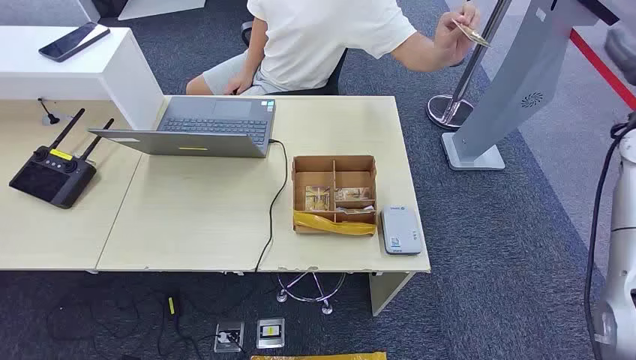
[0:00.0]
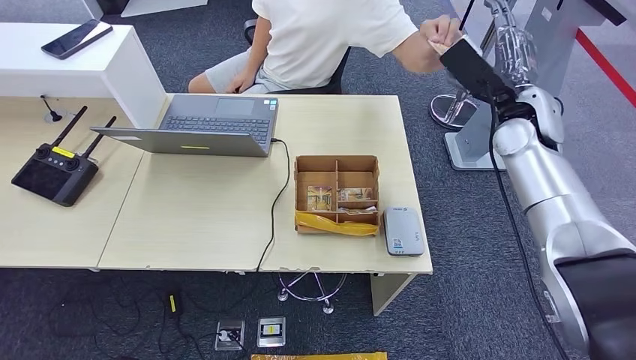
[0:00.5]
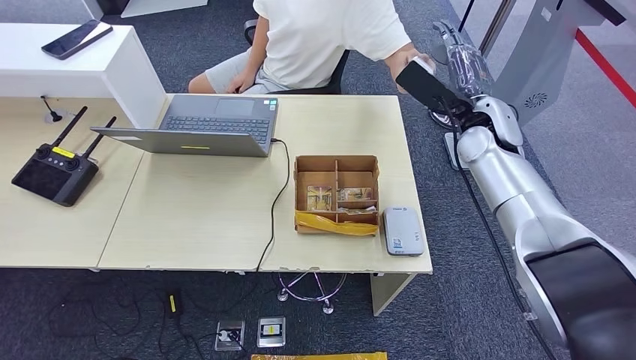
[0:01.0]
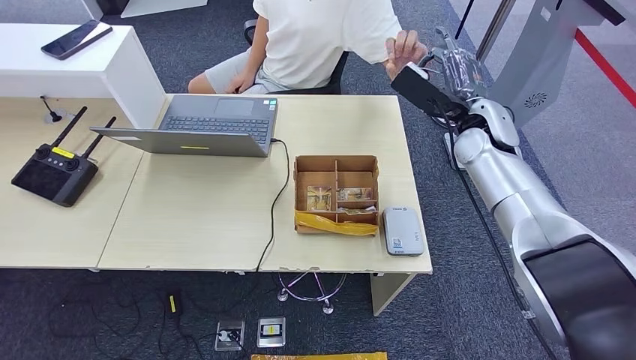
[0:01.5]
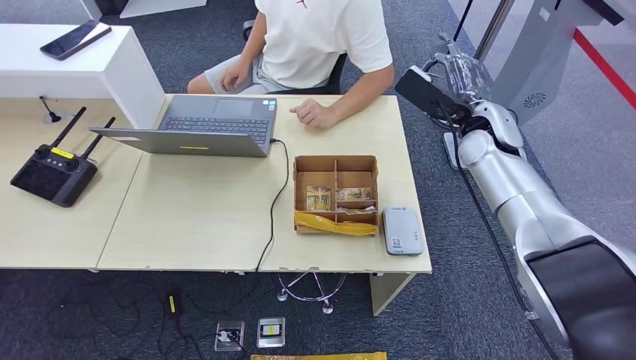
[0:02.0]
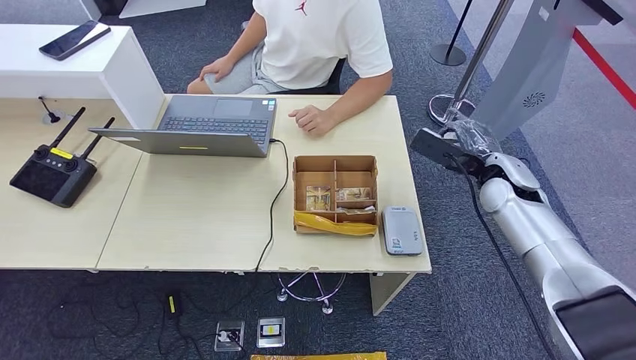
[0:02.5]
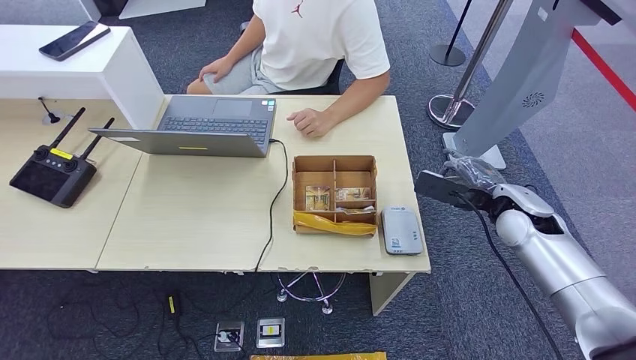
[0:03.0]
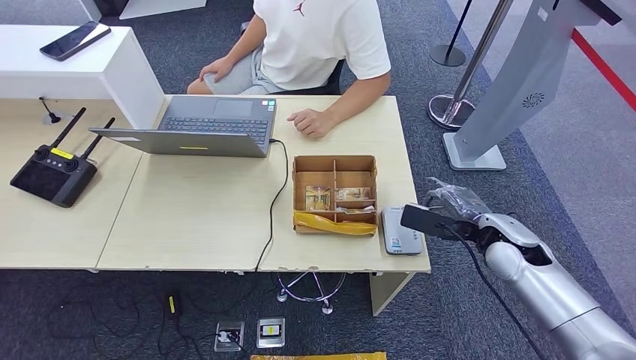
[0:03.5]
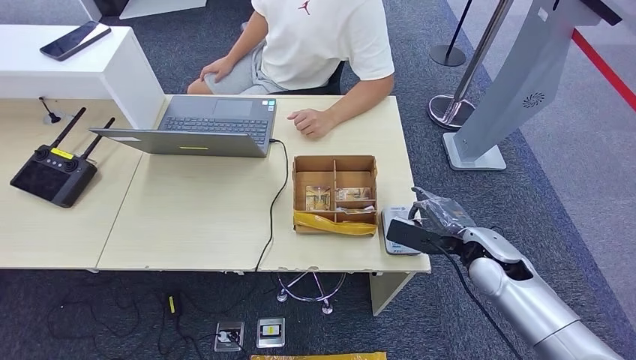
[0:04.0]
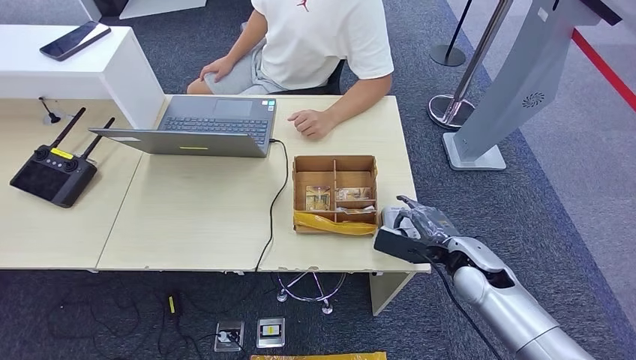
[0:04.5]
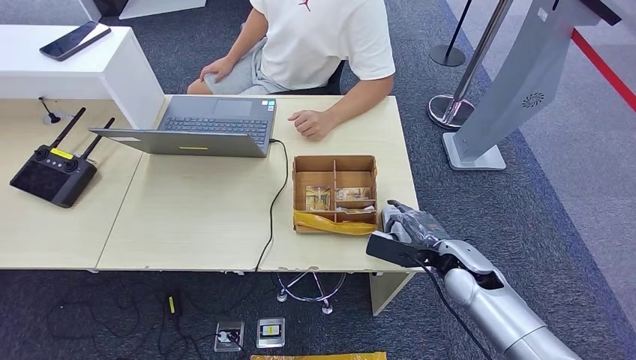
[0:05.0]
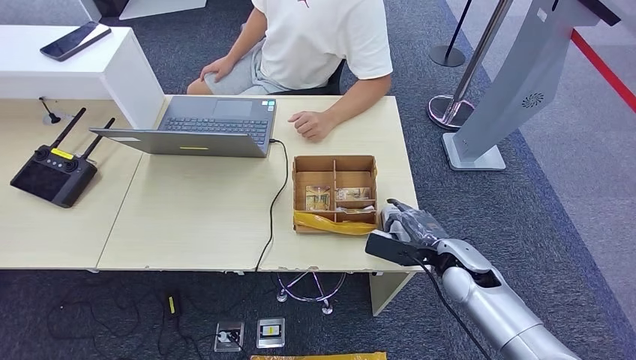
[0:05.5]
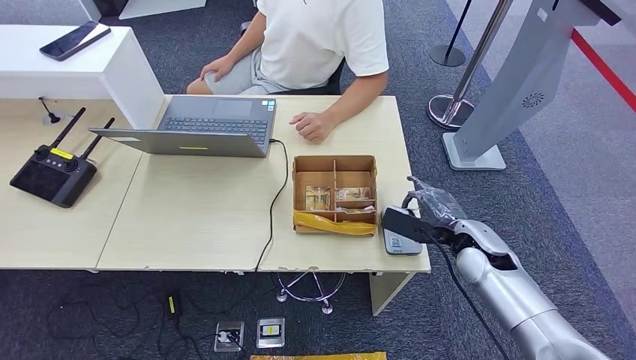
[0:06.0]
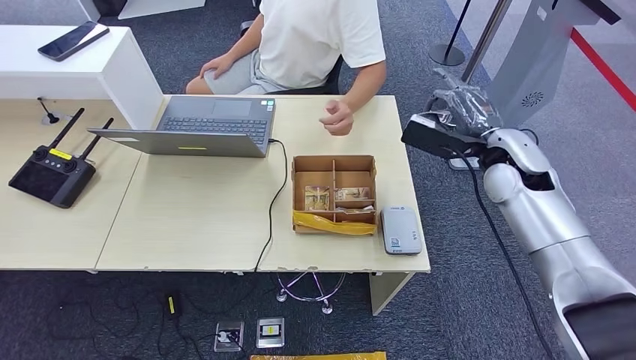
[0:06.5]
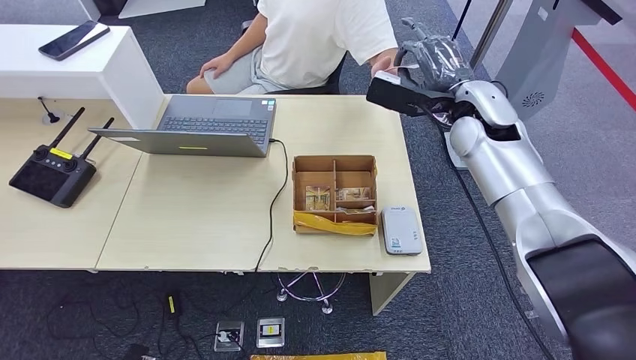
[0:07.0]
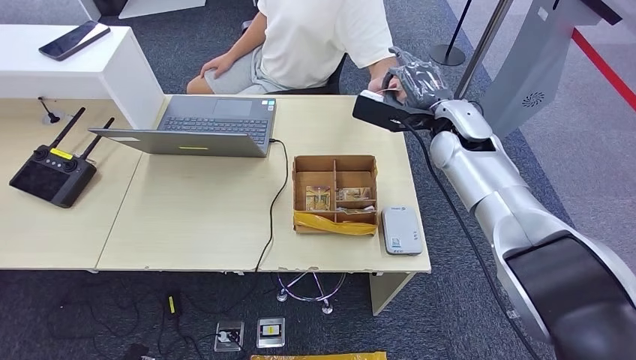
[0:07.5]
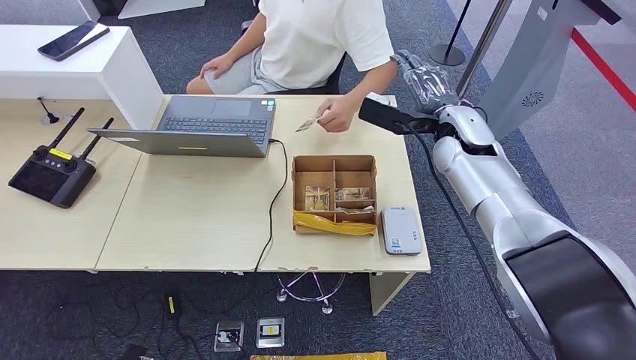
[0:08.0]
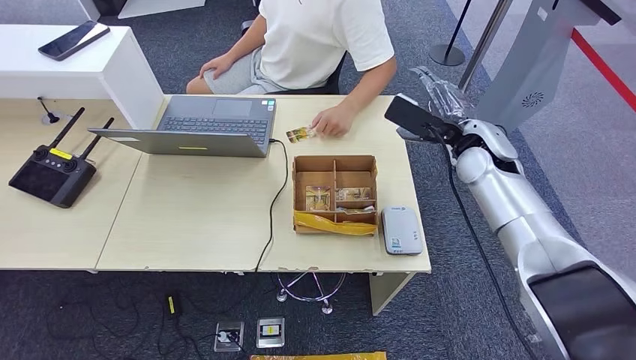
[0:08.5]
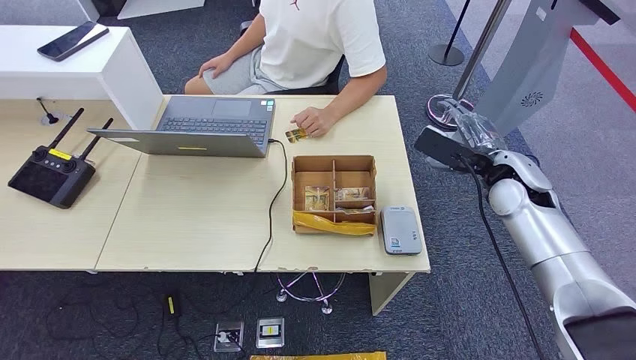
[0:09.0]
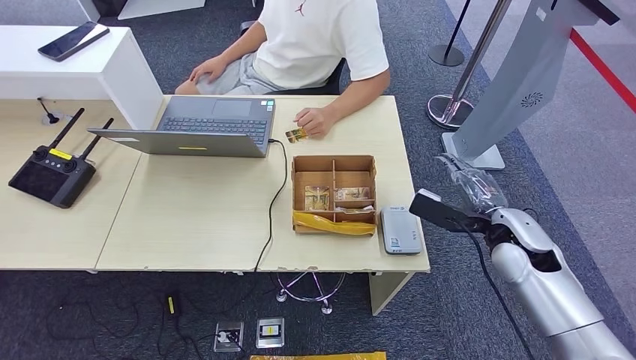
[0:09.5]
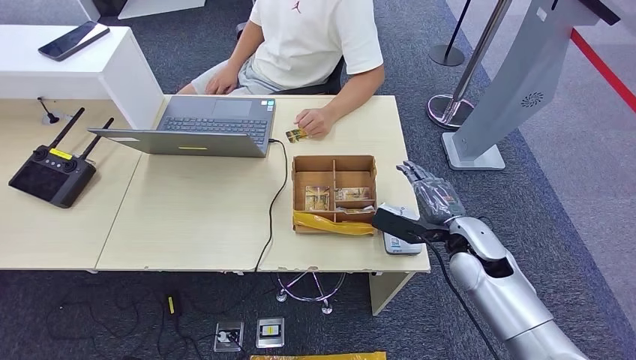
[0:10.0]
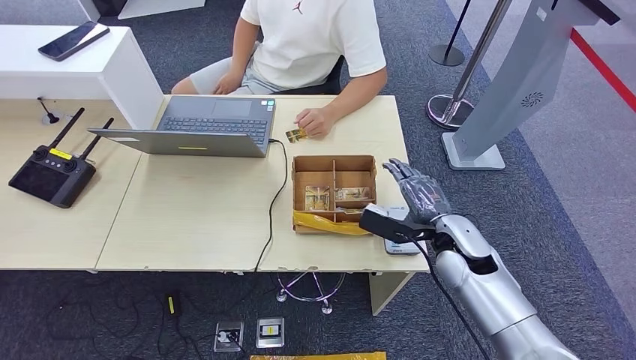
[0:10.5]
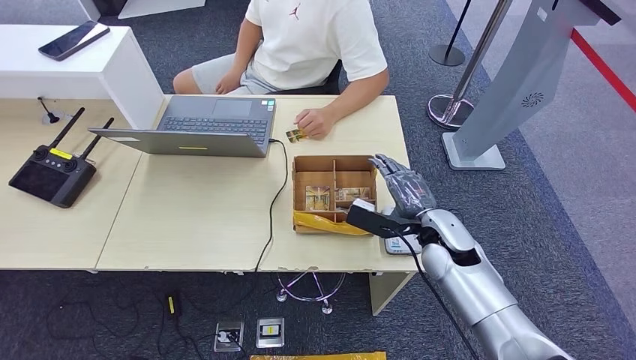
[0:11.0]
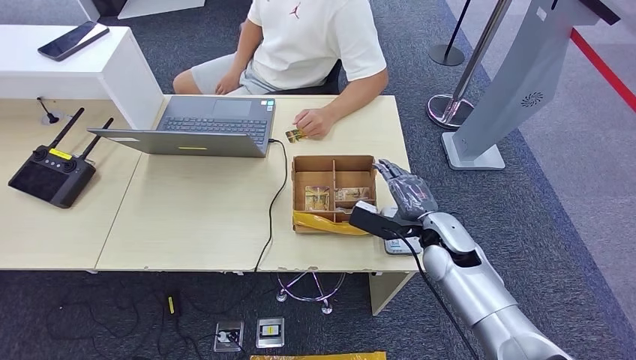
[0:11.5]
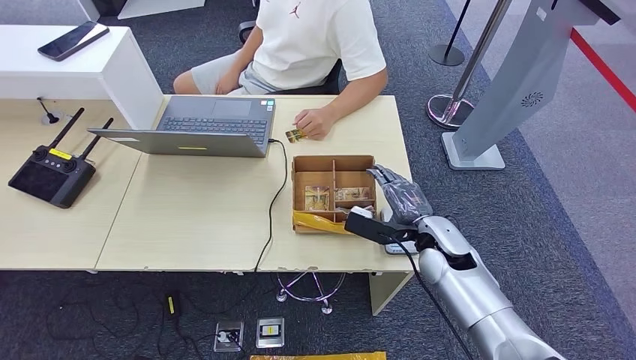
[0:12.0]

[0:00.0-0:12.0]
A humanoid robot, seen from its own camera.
Step, 0:00.0 to 0:02.0: Take the ID card from the person's hand.
Step, 0:02.5 to 0:06.0: Place the ID card on the card reader.
0:02.0 to 0:04.0: The right hand shifts some 20 cm downward and backward.
0:04.0 to 0:06.0: The hands move only a little.
0:06.0 to 0:08.0: The right hand goes some 20 cm upward and forward.
0:08.0 to 0:10.0: The right hand moves backward and downward, roughly 20 cm.
0:10.0 to 0:12.0: The right hand shifts by roughly 5 cm.

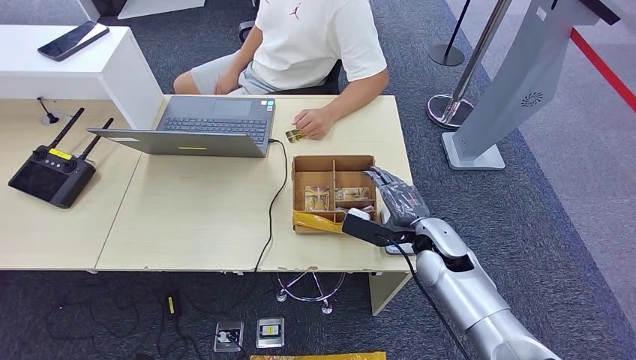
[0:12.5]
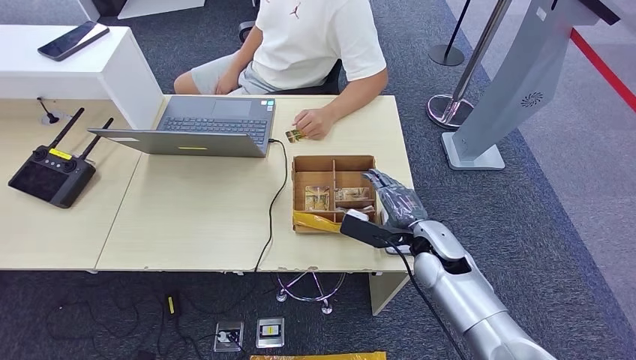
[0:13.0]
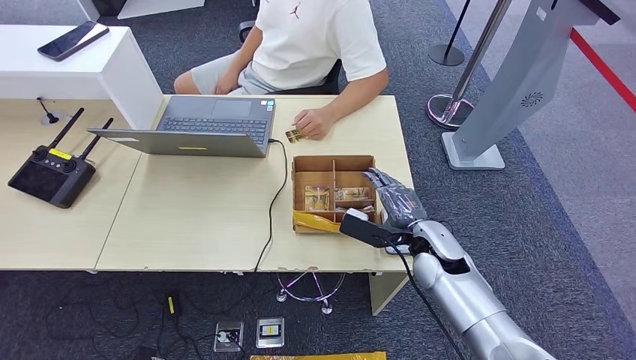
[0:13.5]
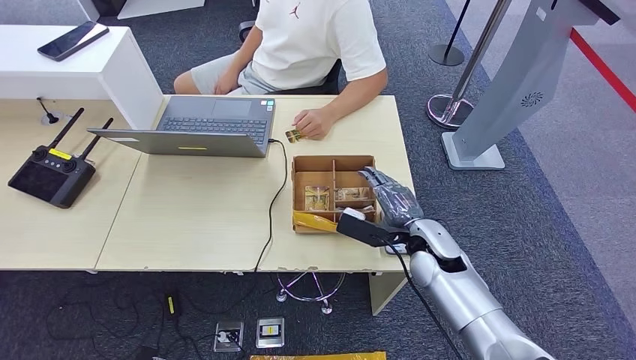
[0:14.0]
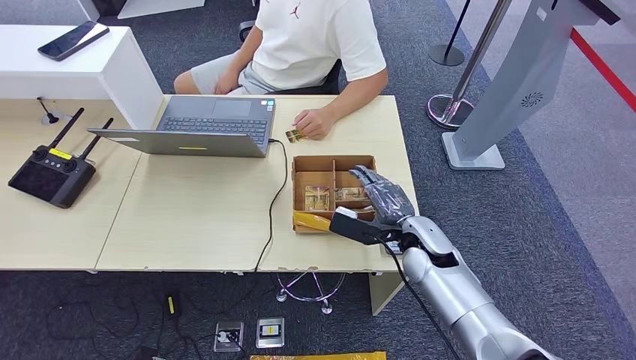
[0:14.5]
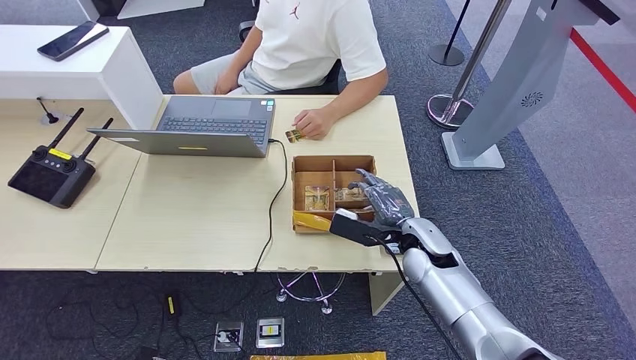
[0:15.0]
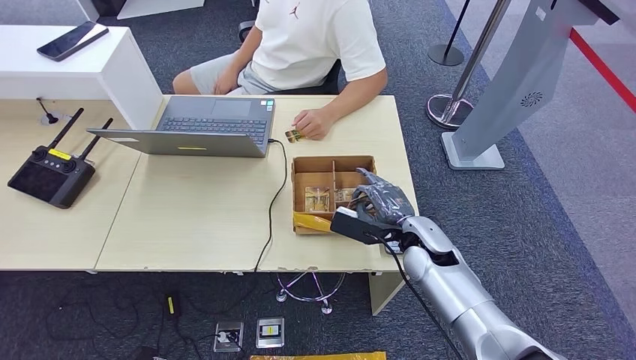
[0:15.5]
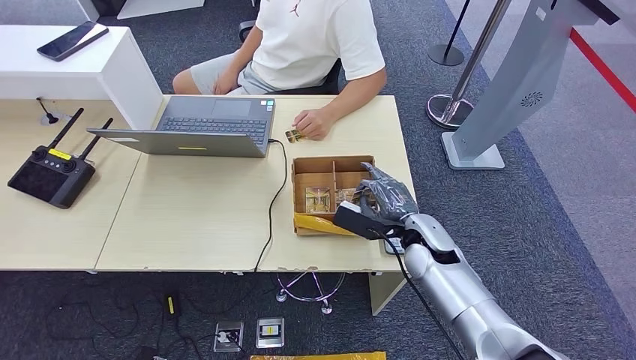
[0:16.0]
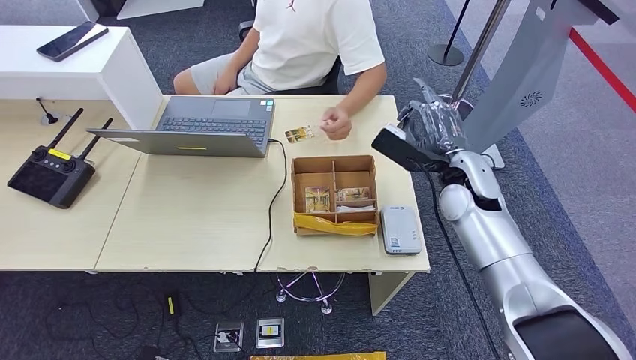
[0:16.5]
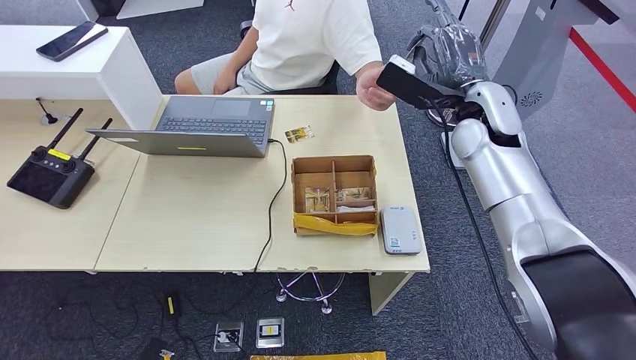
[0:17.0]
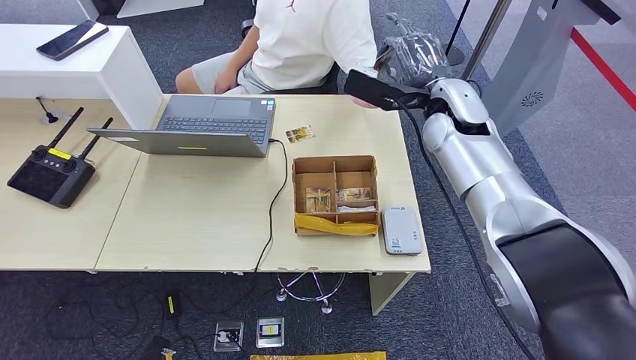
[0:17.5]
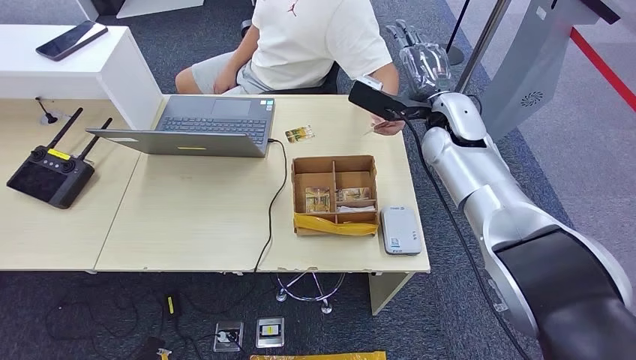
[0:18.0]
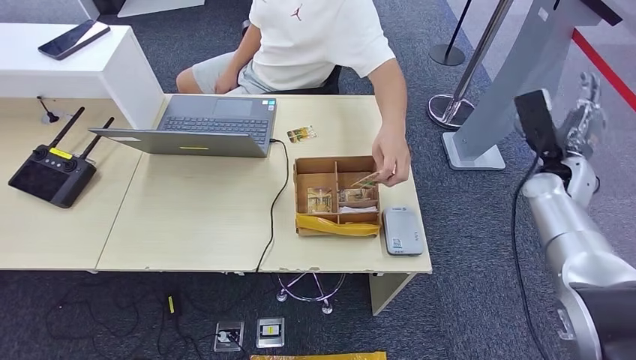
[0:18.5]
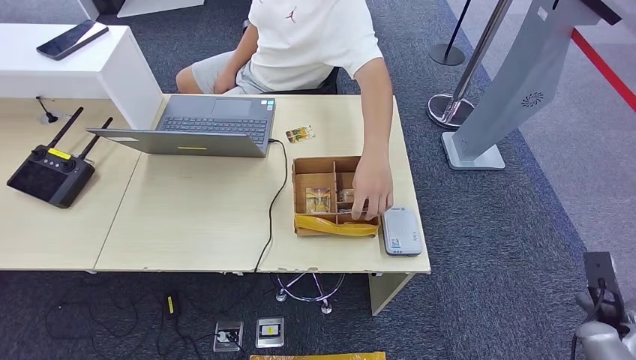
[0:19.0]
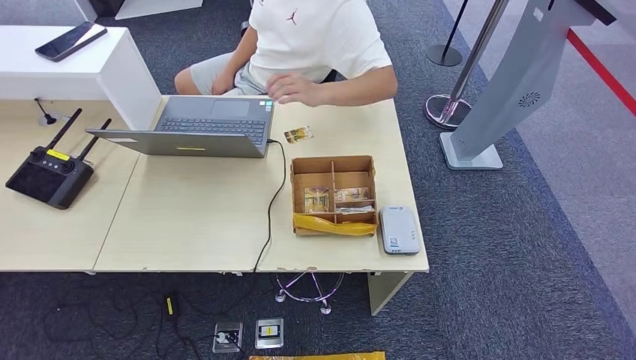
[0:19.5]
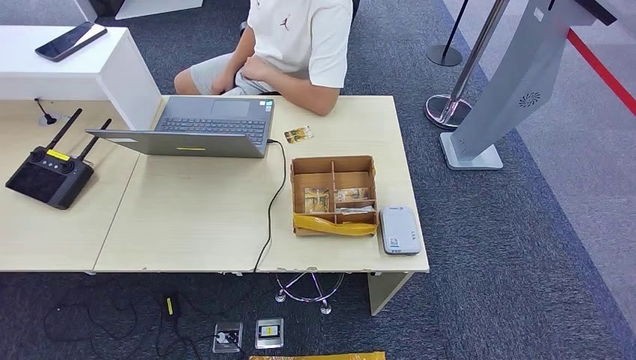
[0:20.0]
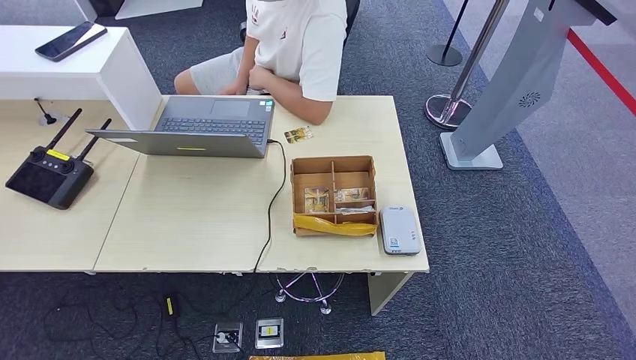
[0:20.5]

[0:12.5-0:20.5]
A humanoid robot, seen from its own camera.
Step, 0:13.0 to 0:16.0: Pick up the room key from the key card box.
Step, 0:16.5 to 0:20.5: Hand the room key to the person.
0:12.5 to 0:14.5: The hands move only a little.
0:14.5 to 0:16.5: The right hand travels upward, forward and to the right by some 15 cm.
